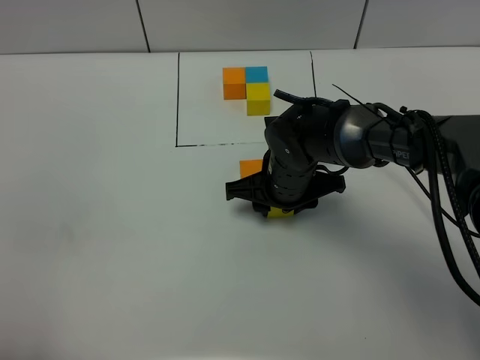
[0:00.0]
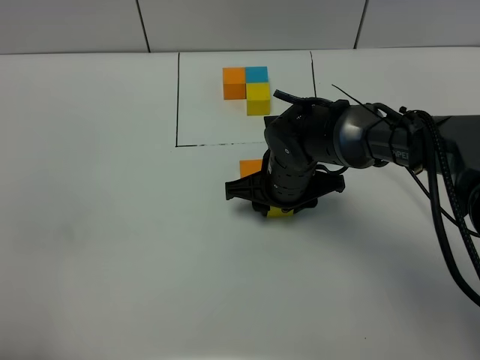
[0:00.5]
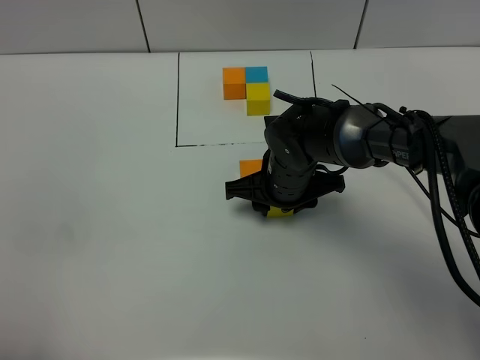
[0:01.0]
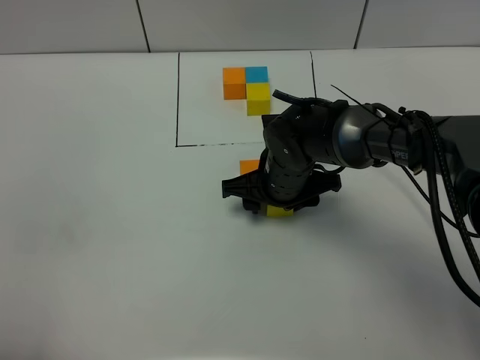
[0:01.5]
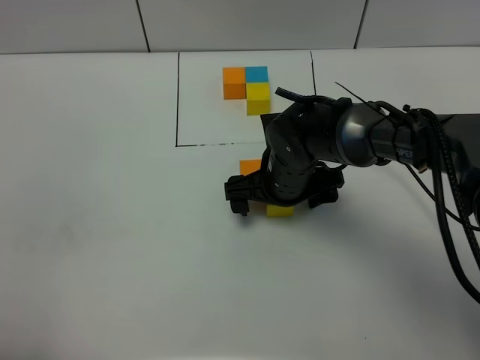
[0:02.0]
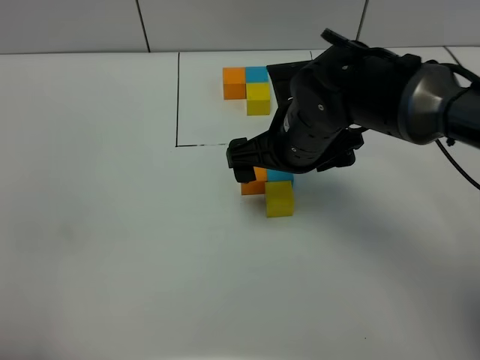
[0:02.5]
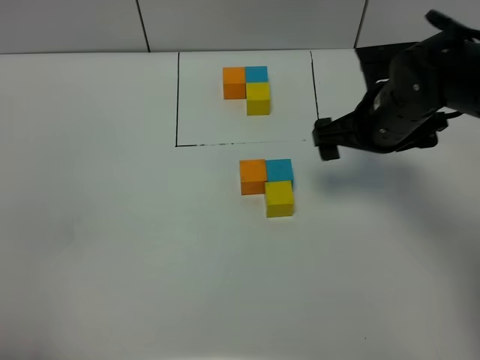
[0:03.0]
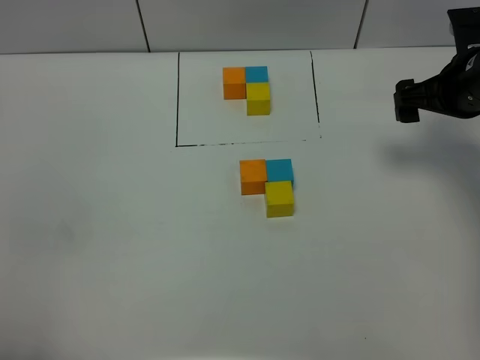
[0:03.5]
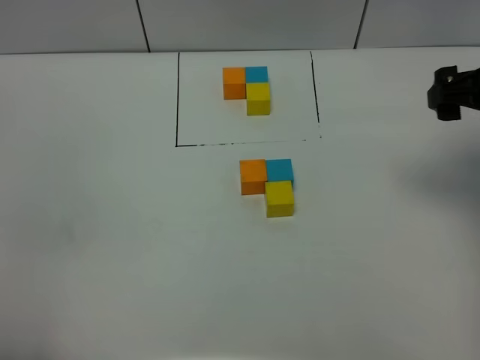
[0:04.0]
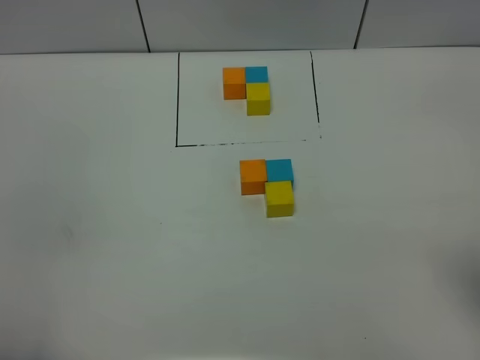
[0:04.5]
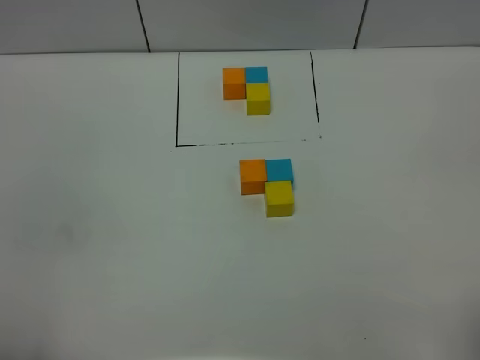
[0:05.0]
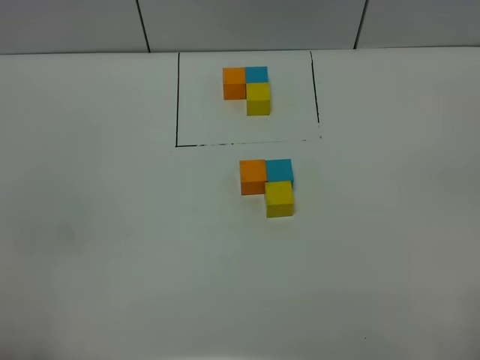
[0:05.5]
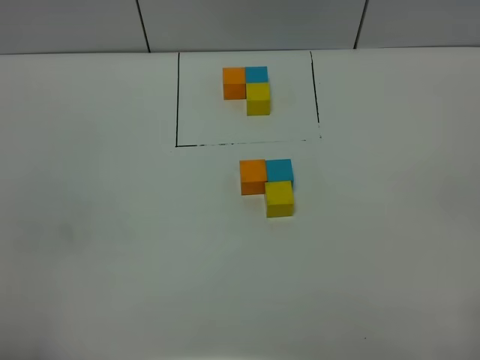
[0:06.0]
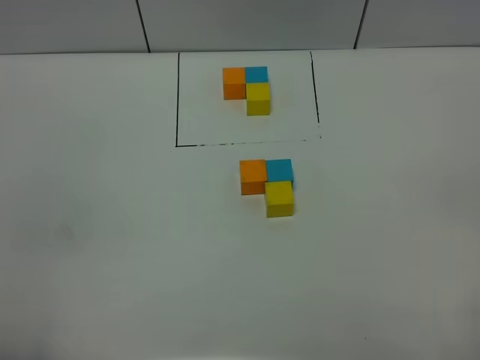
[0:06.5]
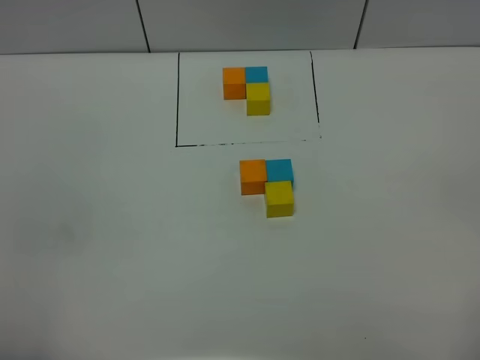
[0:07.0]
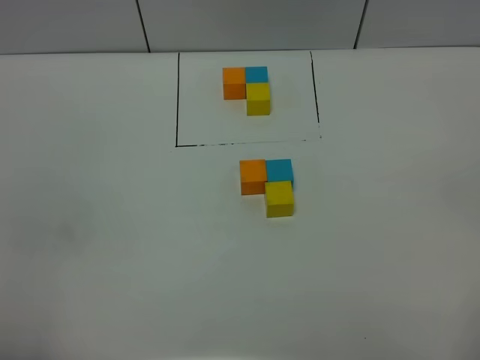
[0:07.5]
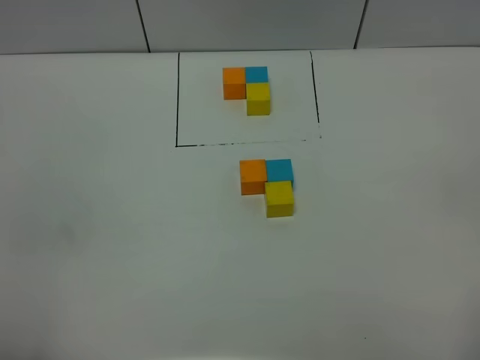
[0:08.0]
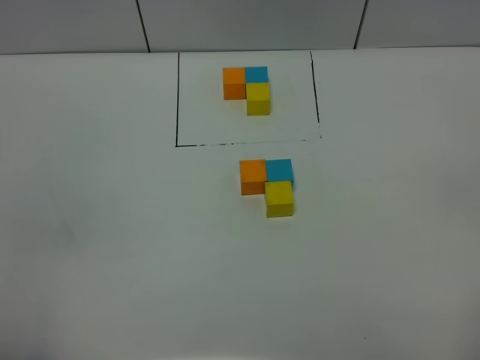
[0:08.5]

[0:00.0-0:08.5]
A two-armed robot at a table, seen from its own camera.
Task of the whole recording: According to the building block template in front, assemble the scattered blocks together.
0:00.0 to 0:02.0: The right gripper opens up.
0:02.0 to 0:04.0: The right gripper travels to the right and upward by approximately 30 cm.
0:04.0 to 0:06.5: The right gripper heads backward, covering approximately 30 cm.
